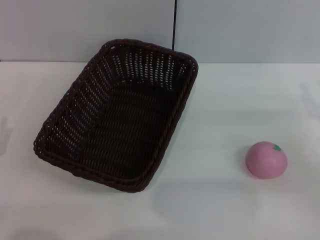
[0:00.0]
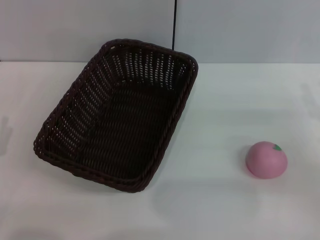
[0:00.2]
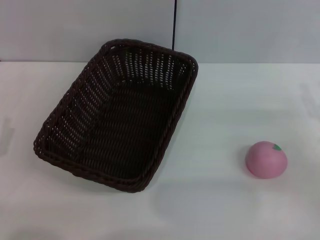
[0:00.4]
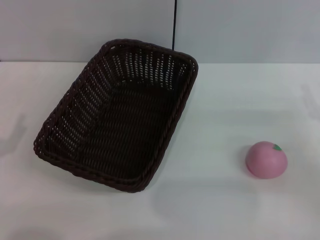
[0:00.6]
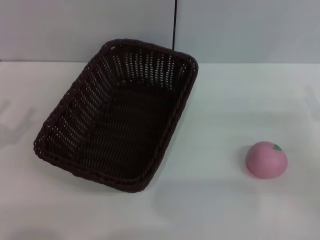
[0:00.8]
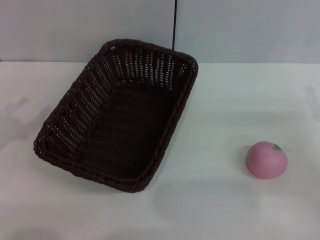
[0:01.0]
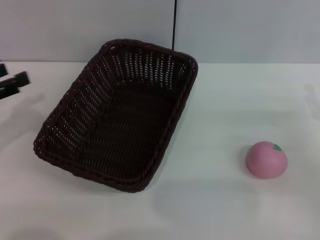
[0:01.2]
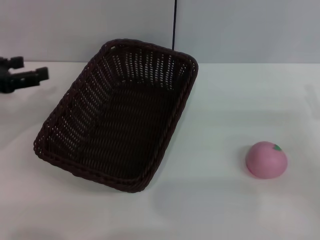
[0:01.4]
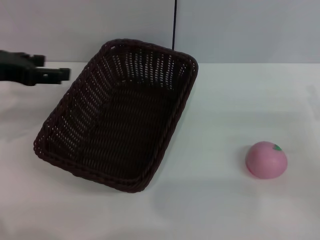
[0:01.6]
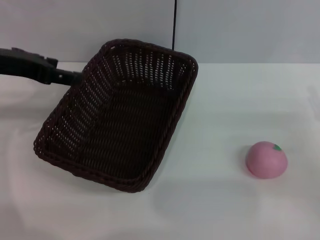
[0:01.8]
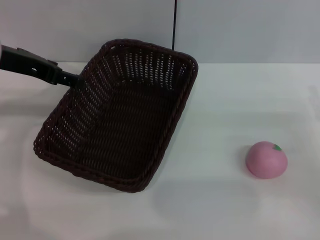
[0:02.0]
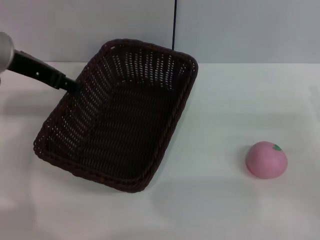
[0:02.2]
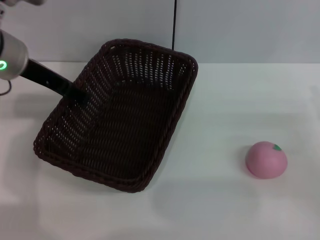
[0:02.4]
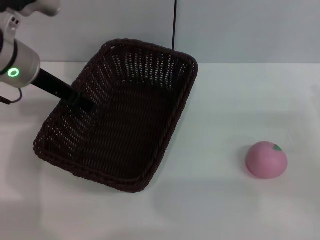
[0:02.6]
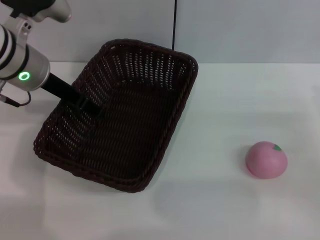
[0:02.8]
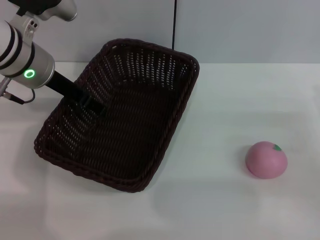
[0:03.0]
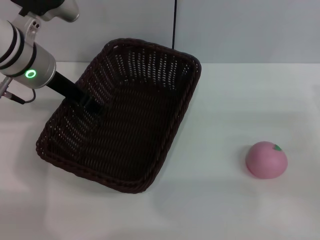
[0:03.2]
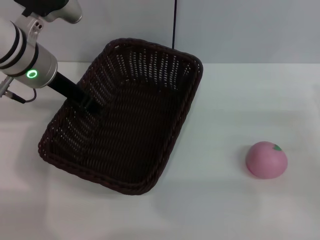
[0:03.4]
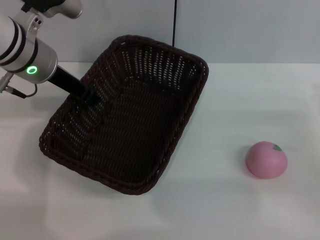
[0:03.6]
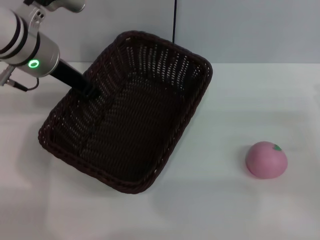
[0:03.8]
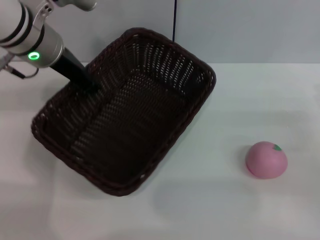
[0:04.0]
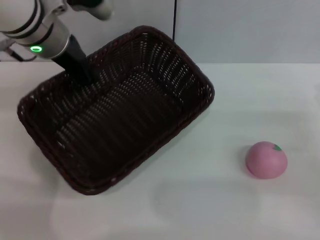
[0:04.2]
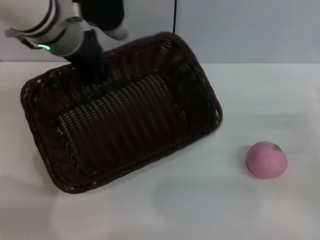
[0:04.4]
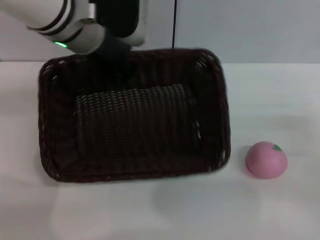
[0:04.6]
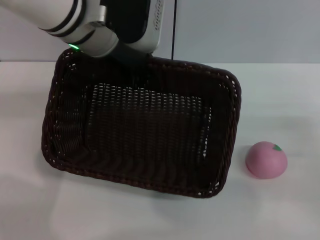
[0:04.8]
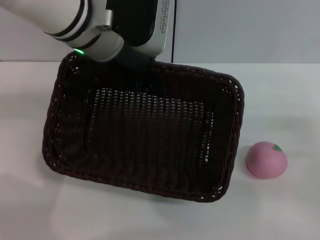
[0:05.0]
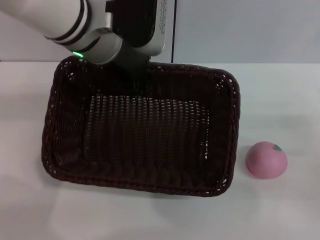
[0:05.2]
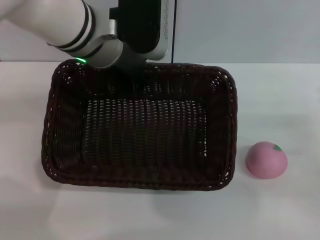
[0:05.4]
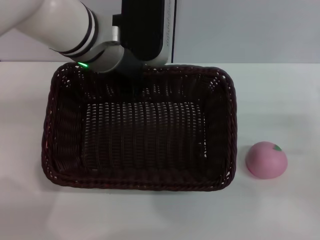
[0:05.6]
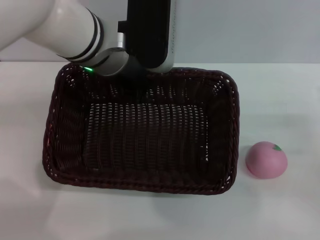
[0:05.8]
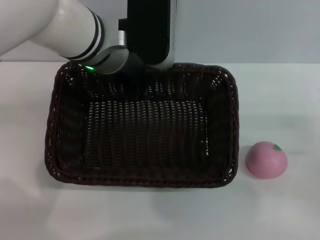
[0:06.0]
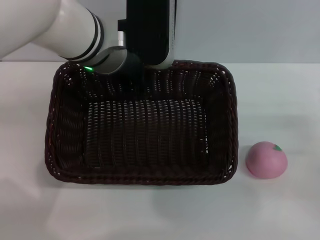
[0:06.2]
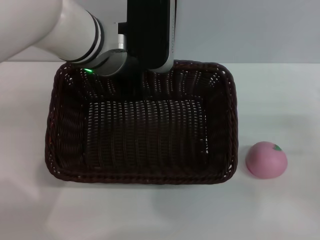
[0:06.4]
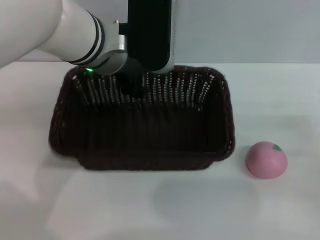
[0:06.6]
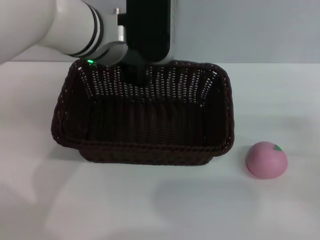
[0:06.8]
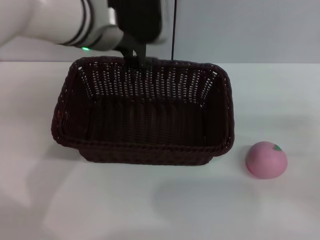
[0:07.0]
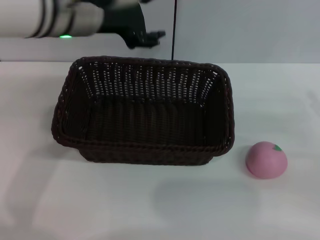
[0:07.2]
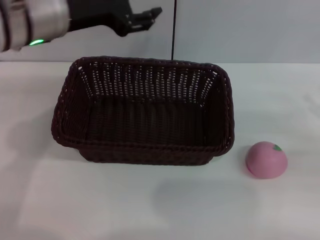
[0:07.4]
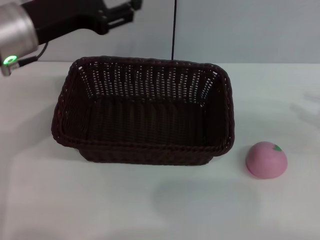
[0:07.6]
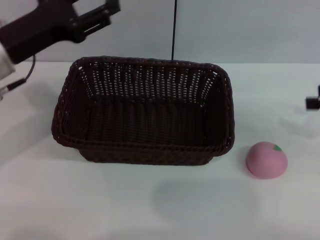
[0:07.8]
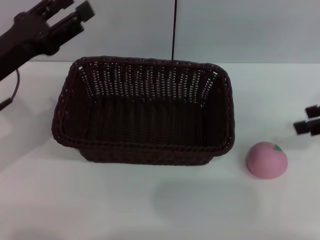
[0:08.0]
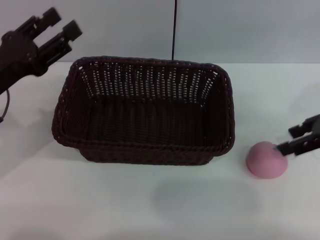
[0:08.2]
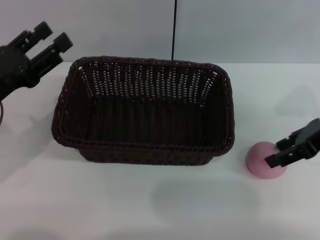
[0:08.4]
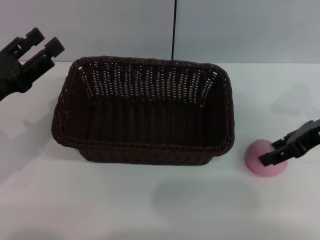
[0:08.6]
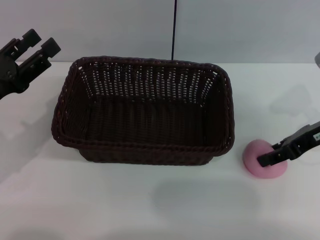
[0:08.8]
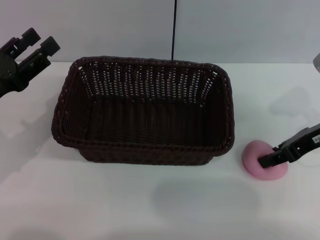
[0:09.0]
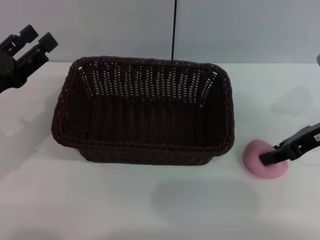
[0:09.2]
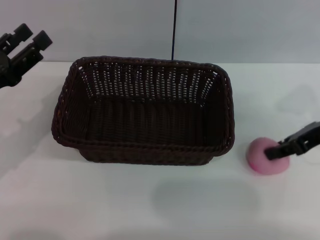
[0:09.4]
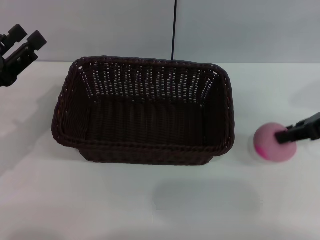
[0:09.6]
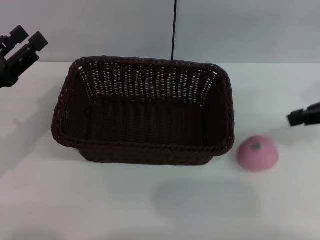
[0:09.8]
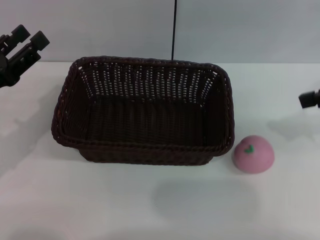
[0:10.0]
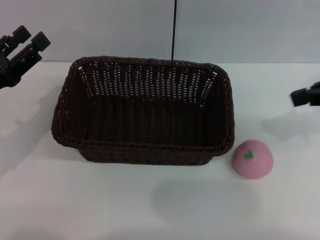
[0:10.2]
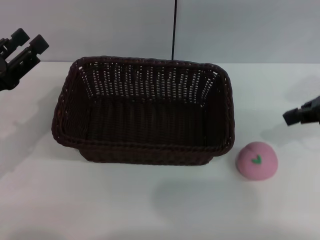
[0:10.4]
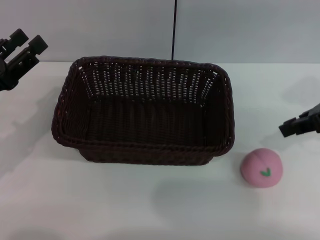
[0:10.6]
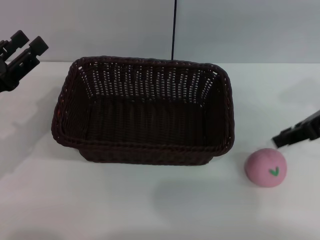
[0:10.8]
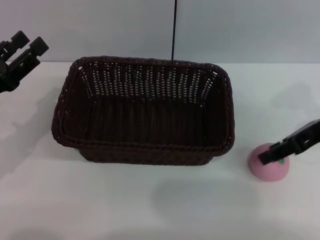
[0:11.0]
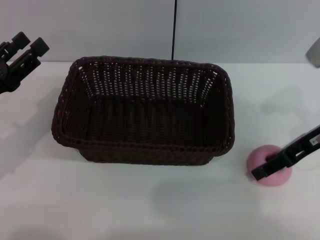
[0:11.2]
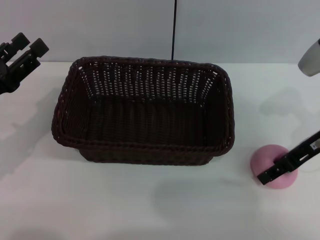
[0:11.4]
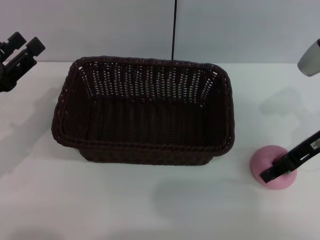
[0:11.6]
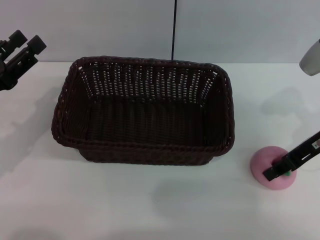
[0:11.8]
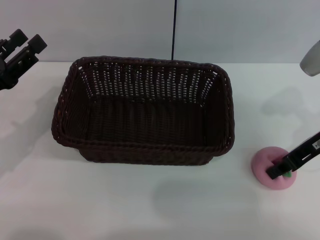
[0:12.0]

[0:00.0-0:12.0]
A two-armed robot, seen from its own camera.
Step, 0:00.0 to 0:04.4: Pick up the dark basket with the left gripper.
Step, 0:04.6 to 0:07.2: Place the dark basket in the center of view with the right gripper.
0:00.0 to 0:01.6: The left gripper heads upward and forward, covering approximately 25 cm.
0:01.6 to 0:03.0: The left gripper goes some 10 cm to the right and forward.
0:03.0 to 0:04.4: The left gripper moves to the right, approximately 5 cm, and closes up.
0:04.4 to 0:06.0: The left gripper ends up some 5 cm from where it was.
0:06.0 to 0:07.6: The right gripper goes some 10 cm upward, to the right and forward; the left gripper moves to the left, roughly 10 cm, and opens.
0:07.6 to 0:09.0: The right gripper moves to the left, about 10 cm, while the left gripper is displaced downward, to the left and backward by roughly 15 cm.
0:09.0 to 0:10.4: The right gripper is displaced upward by about 10 cm, and closes.
0:10.4 to 0:12.0: The right gripper moves downward, approximately 10 cm, and opens up.

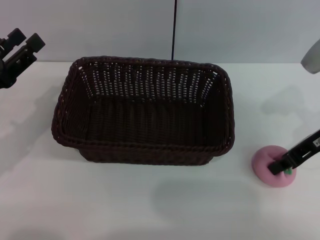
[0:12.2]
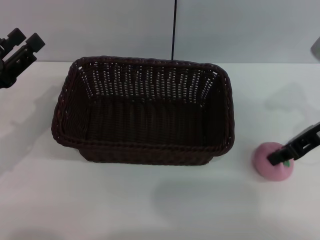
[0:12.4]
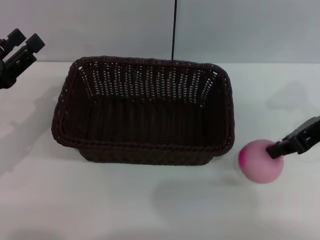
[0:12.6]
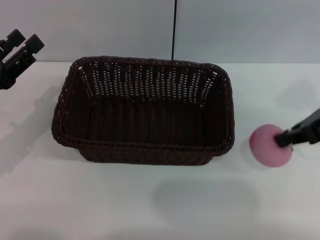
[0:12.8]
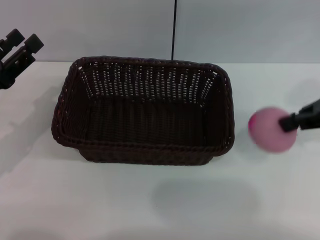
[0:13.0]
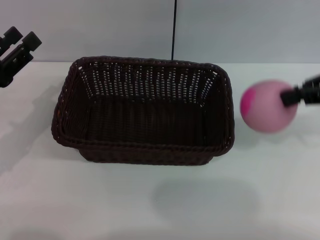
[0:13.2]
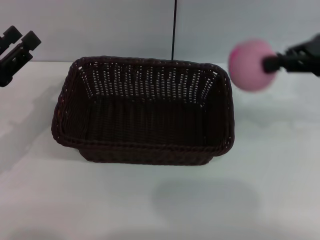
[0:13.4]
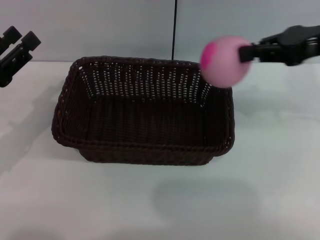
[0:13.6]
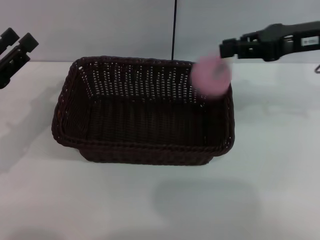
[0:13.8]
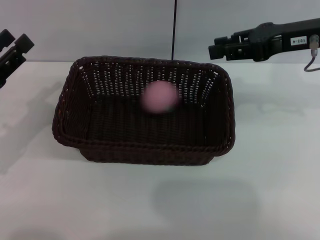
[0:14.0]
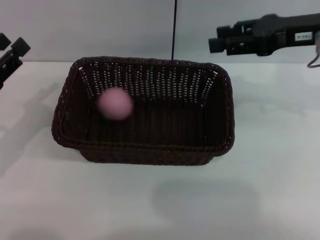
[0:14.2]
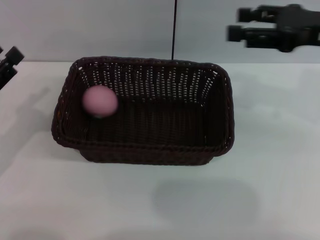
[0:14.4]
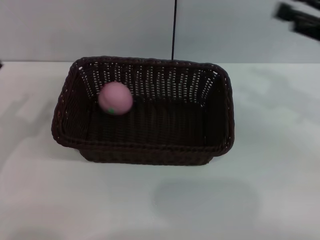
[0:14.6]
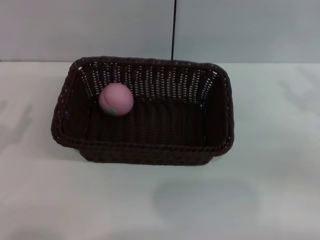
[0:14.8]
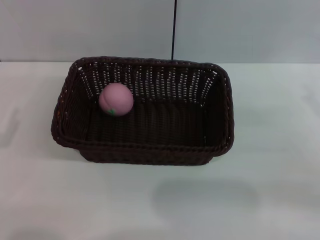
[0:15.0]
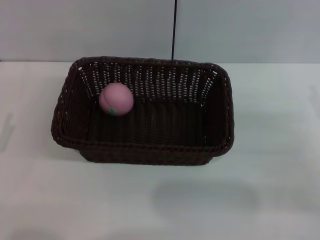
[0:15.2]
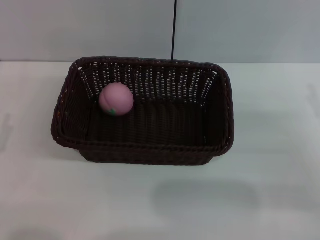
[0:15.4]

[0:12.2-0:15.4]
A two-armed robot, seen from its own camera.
0:12.2 to 0:13.8: The right gripper is displaced upward by some 5 cm.
0:13.8 to 0:15.4: The right gripper is displaced downward, backward and to the right by about 20 cm, and opens. Meanwhile the left gripper is displaced backward and downward by about 10 cm.
